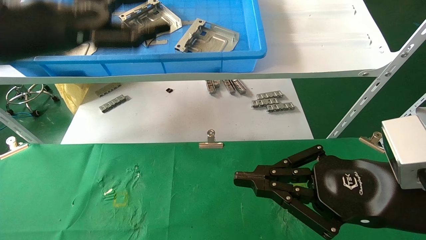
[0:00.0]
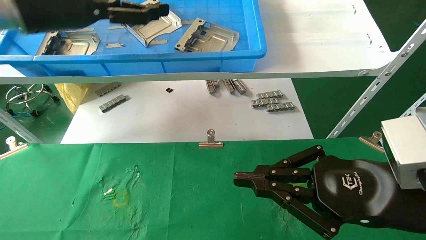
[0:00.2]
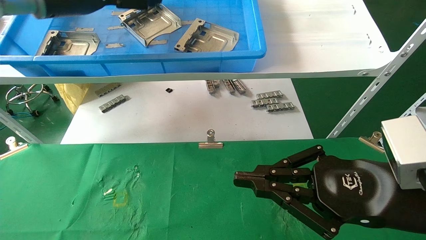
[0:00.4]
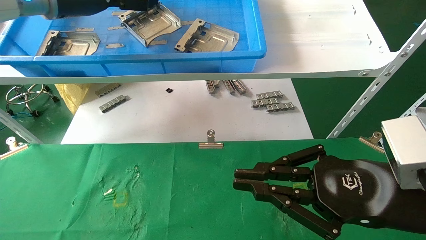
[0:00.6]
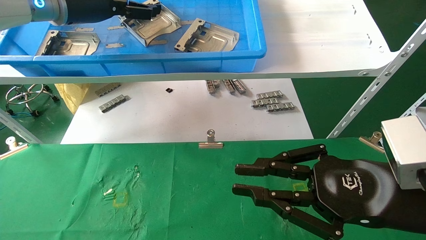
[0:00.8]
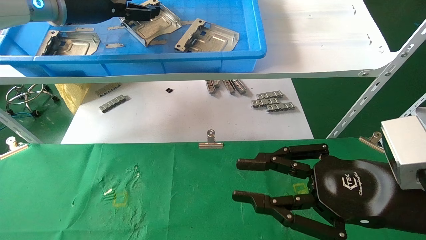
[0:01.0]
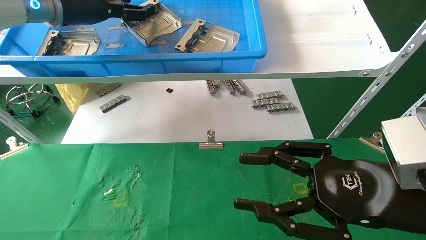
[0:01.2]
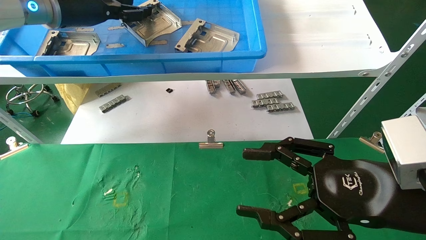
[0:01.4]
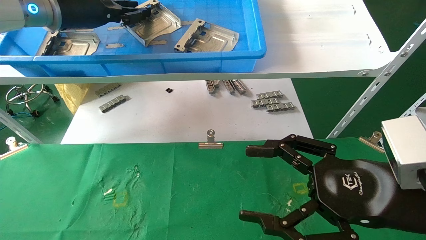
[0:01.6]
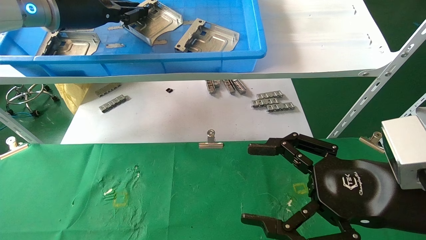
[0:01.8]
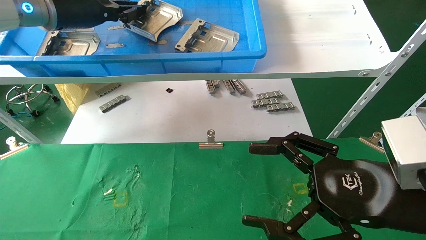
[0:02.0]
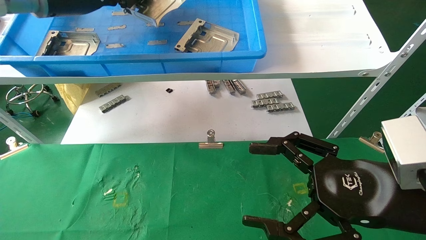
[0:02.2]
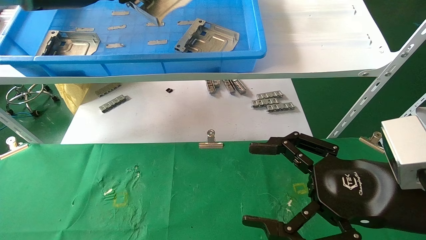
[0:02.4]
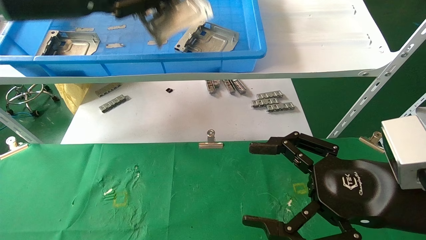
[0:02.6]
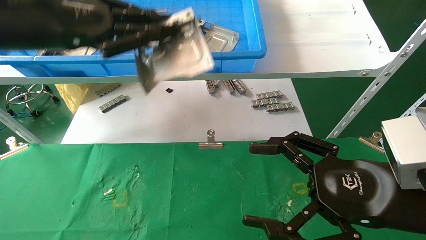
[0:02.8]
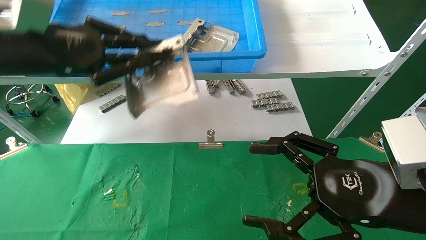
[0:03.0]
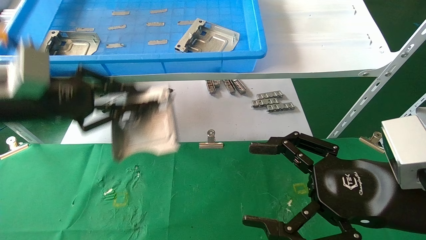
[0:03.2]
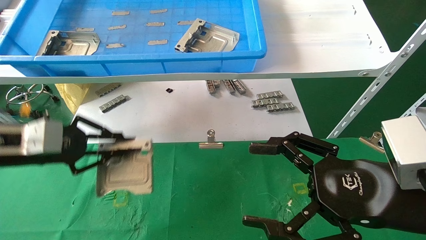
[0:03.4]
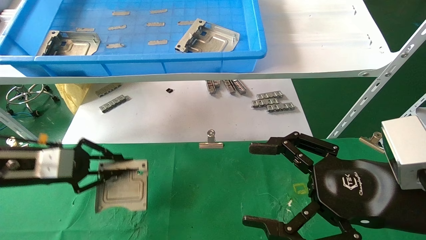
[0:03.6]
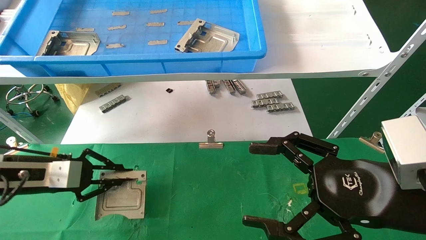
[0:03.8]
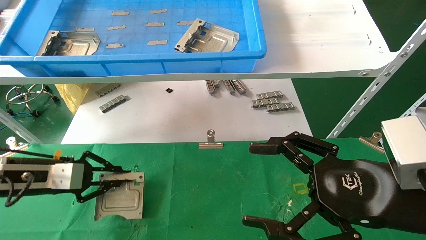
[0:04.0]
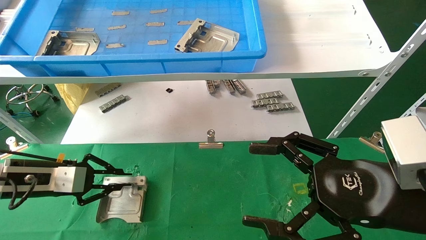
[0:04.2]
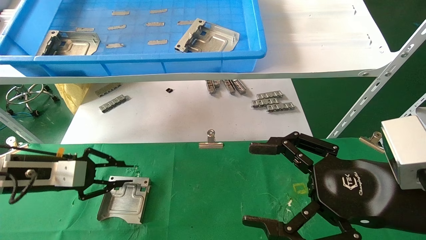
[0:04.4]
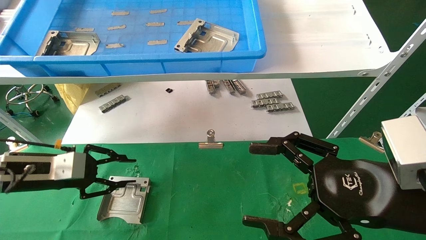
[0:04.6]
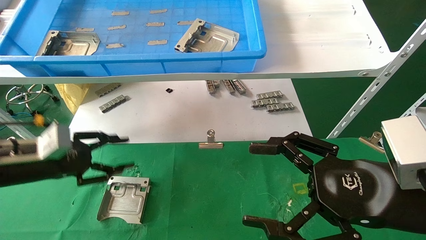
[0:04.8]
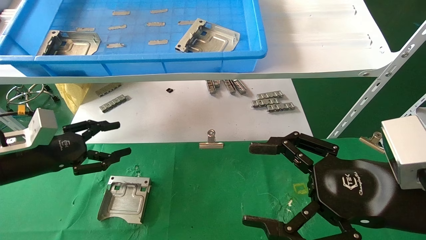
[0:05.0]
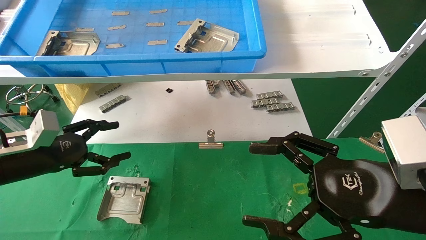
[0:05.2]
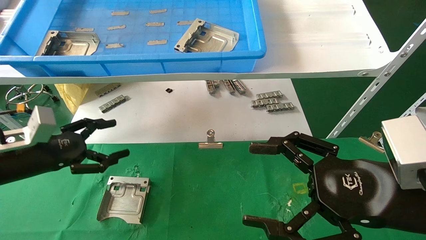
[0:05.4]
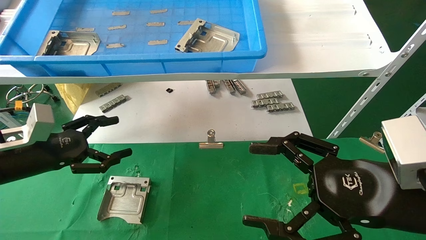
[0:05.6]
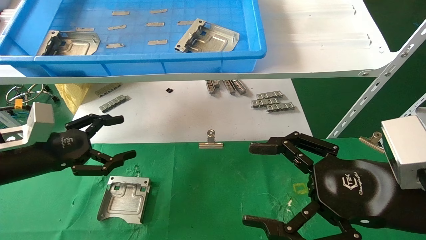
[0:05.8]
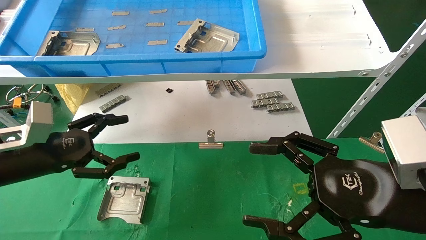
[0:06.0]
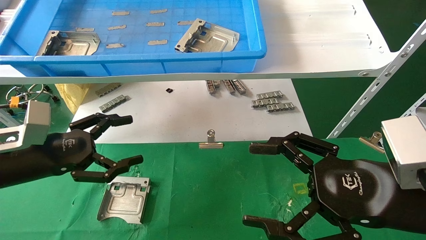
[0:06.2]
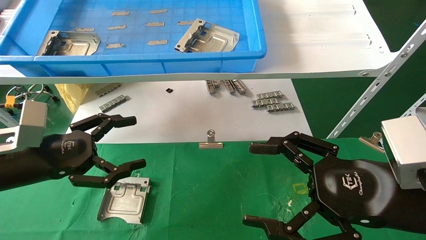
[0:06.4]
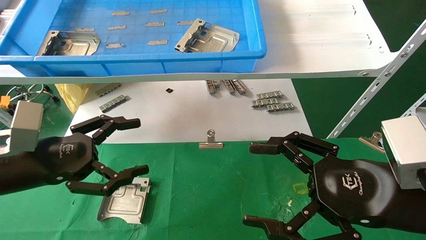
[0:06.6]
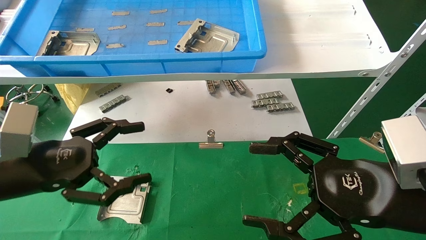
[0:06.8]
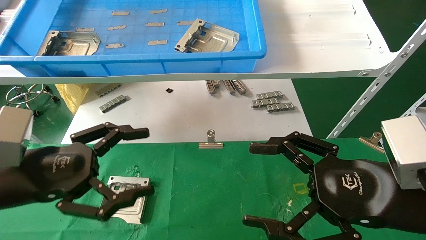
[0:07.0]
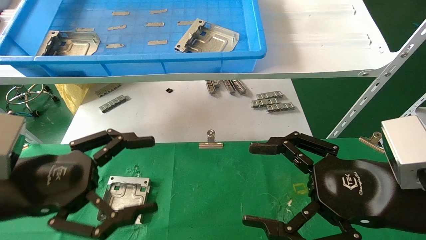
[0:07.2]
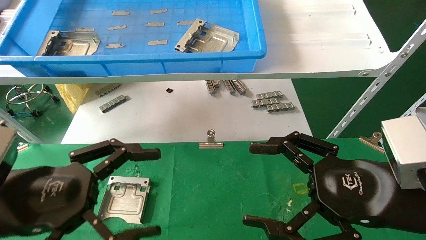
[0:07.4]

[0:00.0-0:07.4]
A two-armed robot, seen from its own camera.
Task of the whole recording: use the mechanical arm to pick up the parts and place them on the table.
Step, 0:00.0 to 0:02.0: Pick up the hard drive bracket from the feeding area.
Step, 0:02.2 to 0:04.8: Place the hard drive bracket into the box.
0:00.0 to 0:01.4: The left gripper travels forward and upward by about 10 cm, and closes its fingers; the right gripper opens up.
0:01.4 to 0:03.0: The left gripper heads backward and downward, covering roughly 15 cm, and closes, while the right gripper opens its fingers.
0:03.0 to 0:04.4: The left gripper heads downward, covering approximately 20 cm.
0:04.4 to 0:06.0: The left gripper ends up about 5 cm from where it was, and opens its fingers.
0:06.0 to 0:07.4: The left gripper goes approximately 15 cm backward and to the right.
